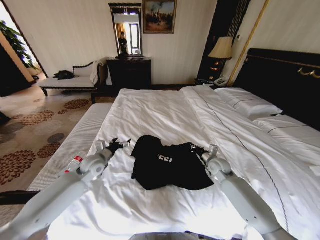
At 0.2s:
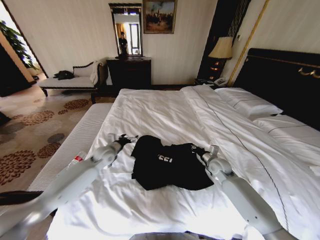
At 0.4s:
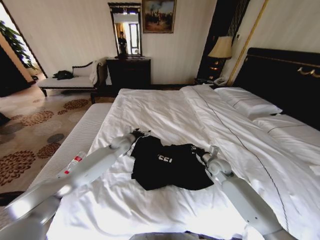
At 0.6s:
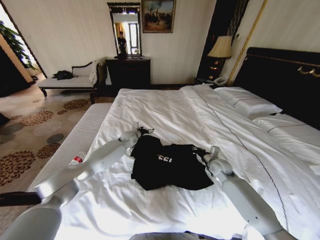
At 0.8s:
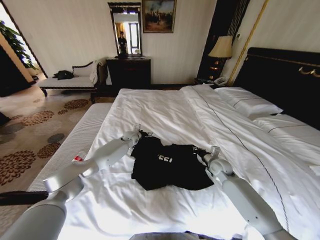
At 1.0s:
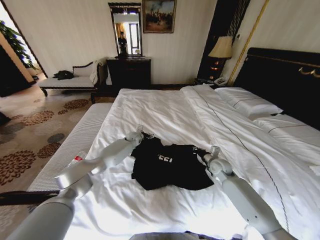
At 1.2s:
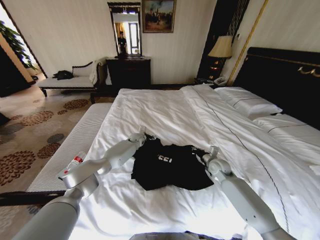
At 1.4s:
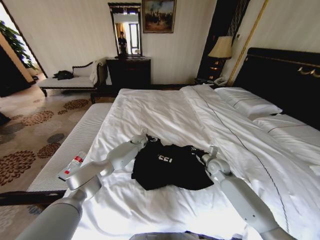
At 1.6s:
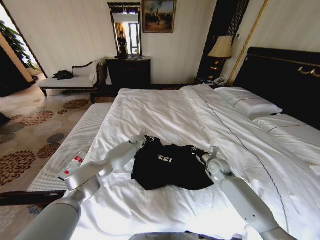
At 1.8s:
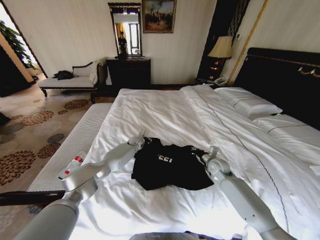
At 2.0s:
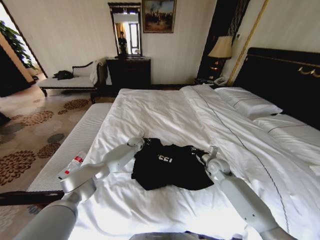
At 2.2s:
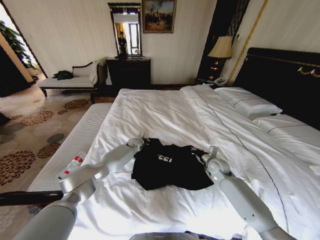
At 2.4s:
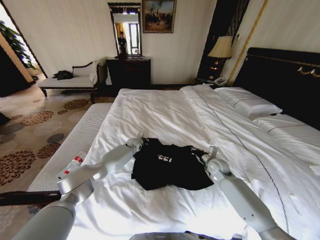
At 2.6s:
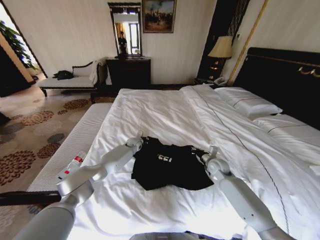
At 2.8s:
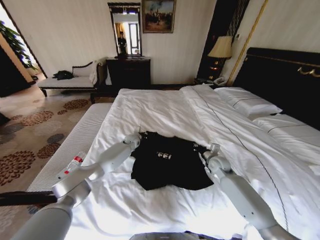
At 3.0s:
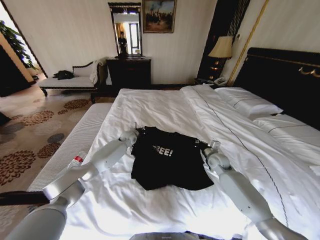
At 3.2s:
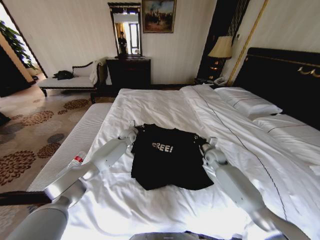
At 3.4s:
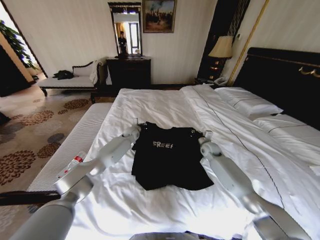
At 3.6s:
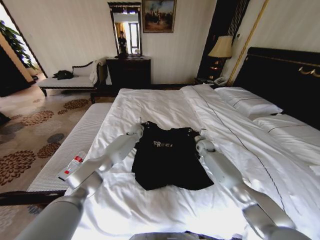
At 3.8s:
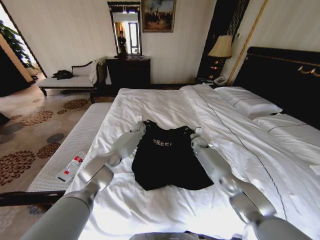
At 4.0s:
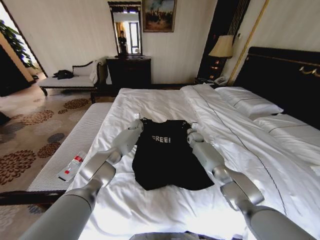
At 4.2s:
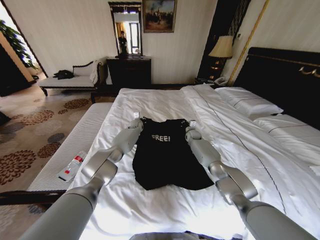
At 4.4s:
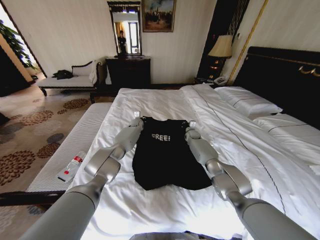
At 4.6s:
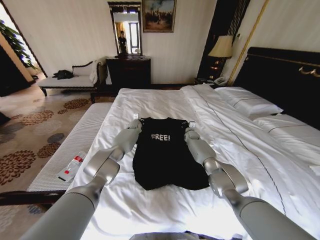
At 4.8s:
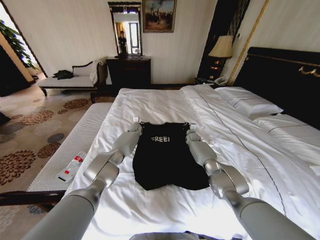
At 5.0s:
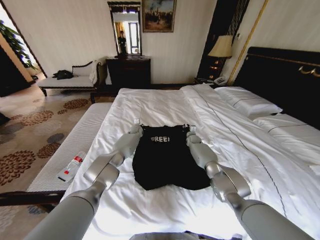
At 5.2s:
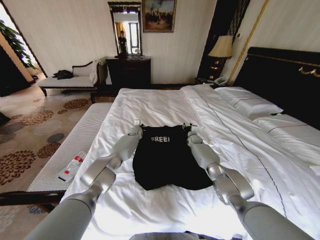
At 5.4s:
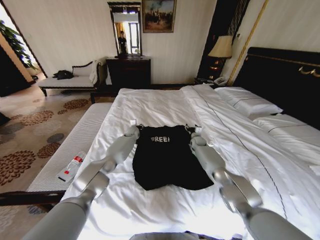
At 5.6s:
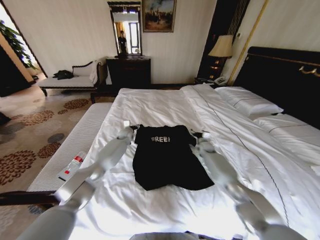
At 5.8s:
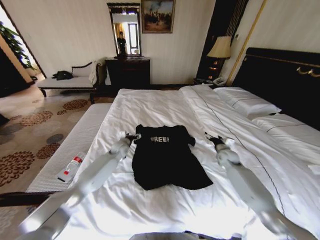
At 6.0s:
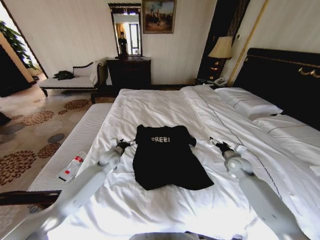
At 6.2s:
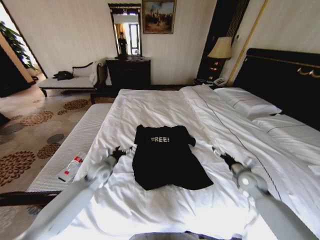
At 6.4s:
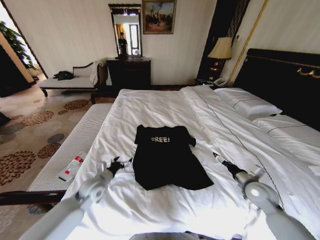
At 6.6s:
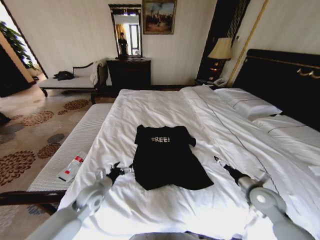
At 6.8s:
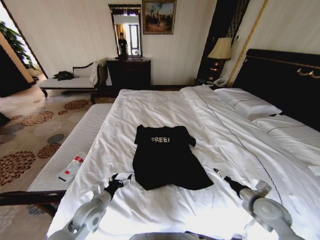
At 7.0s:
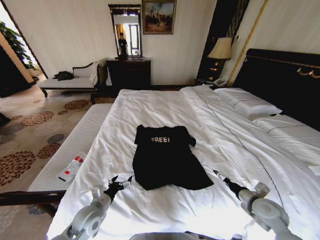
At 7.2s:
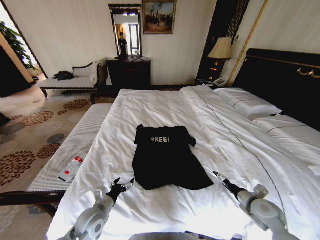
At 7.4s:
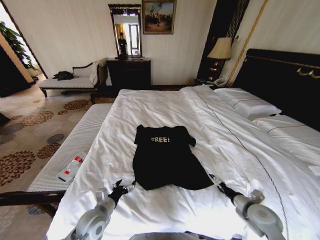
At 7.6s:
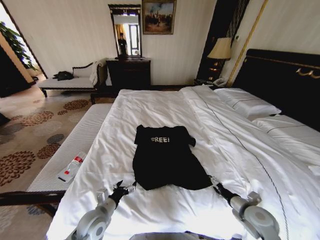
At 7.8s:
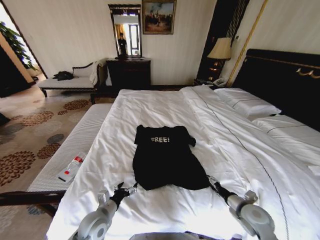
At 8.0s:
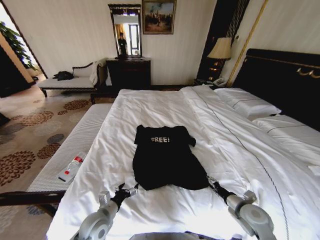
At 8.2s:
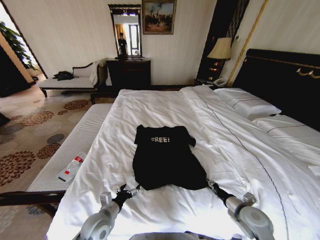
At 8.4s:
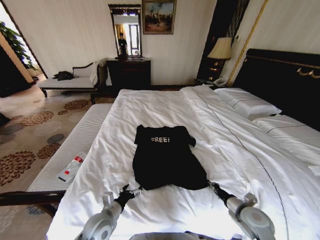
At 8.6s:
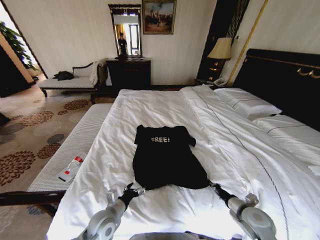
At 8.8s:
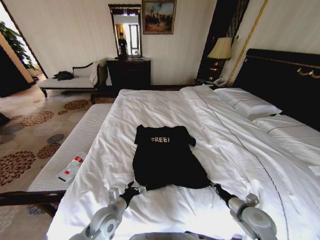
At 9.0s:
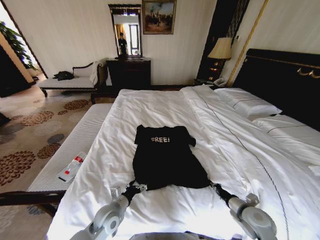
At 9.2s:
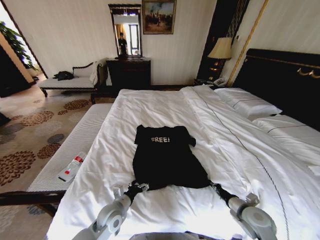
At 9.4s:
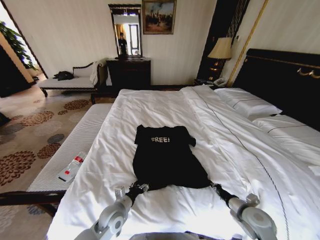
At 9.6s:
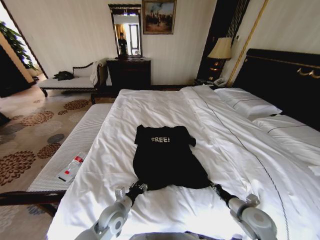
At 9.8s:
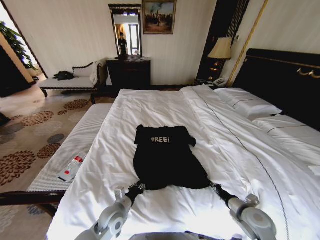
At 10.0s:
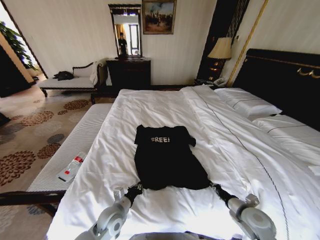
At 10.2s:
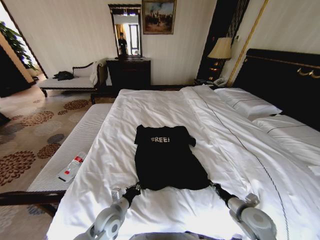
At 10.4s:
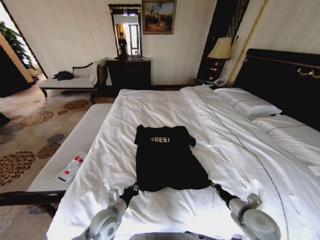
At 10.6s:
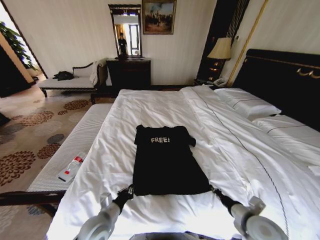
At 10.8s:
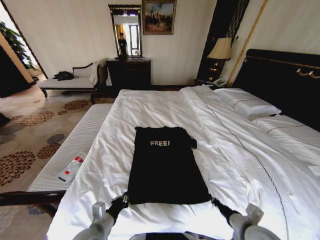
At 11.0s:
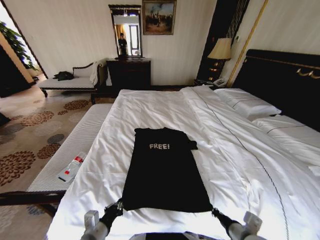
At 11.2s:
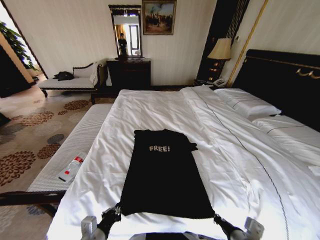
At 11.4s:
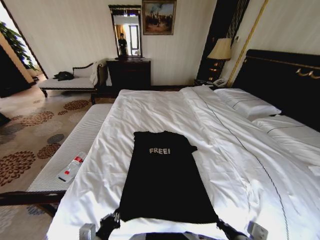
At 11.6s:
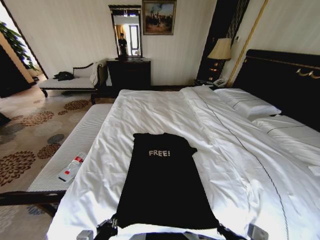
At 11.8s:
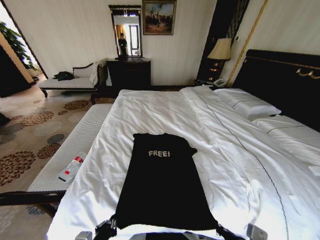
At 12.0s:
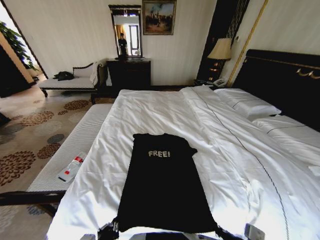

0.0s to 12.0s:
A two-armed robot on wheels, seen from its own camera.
Task of the whole recording: Fold the clothes on the bed.
0.0s to 1.6s: The left gripper goes about 30 cm forward and to the right.
1.6s to 3.0s: The left gripper travels upward by roughly 5 cm, and closes.
3.0s to 4.4s: The right gripper moves forward, about 20 cm. The left gripper is displaced forward by some 10 cm.
4.4s to 6.0s: The left gripper goes roughly 25 cm backward and to the left, and opens up. The right gripper is displaced backward and to the right by some 30 cm, and opens its fingers.
6.0s to 7.6s: Both grippers move backward, some 25 cm.
7.6s to 9.0s: The left gripper ends up roughly 5 cm from where it was, while the right gripper closes its fingers.
9.0s to 10.4s: The left gripper closes its fingers.
10.4s to 12.0s: The left gripper travels backward by roughly 15 cm. The right gripper moves backward, to the left and upward, some 15 cm.

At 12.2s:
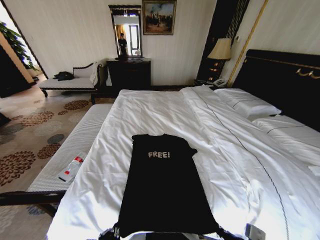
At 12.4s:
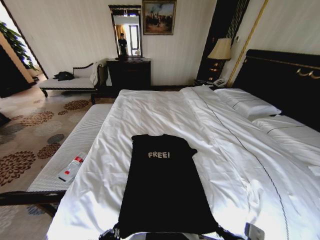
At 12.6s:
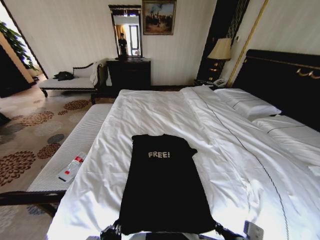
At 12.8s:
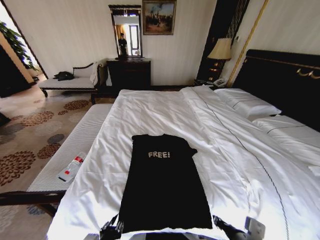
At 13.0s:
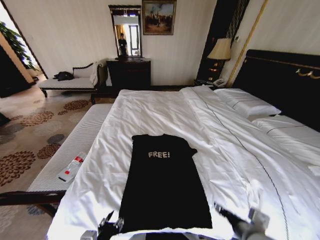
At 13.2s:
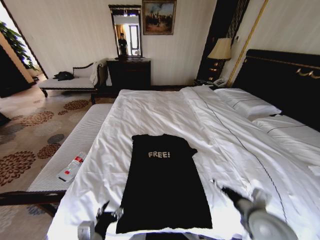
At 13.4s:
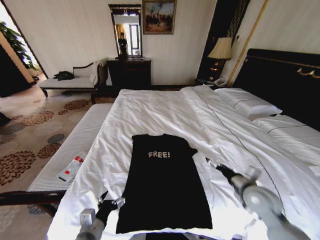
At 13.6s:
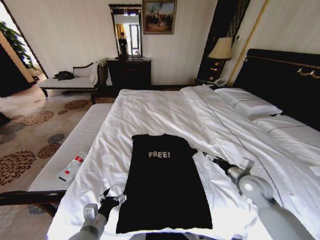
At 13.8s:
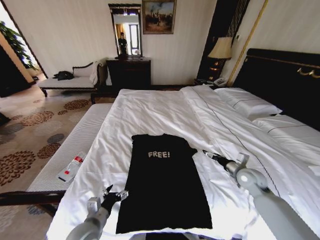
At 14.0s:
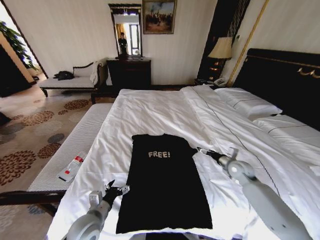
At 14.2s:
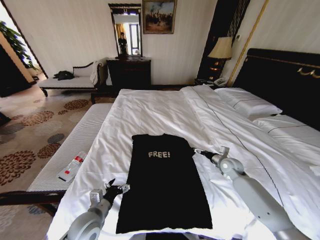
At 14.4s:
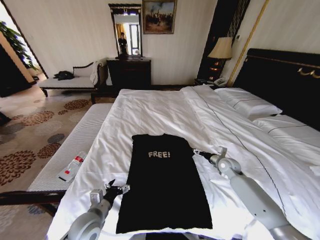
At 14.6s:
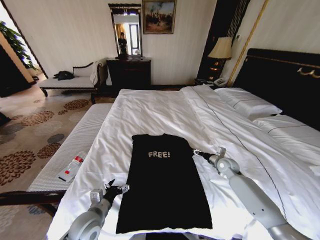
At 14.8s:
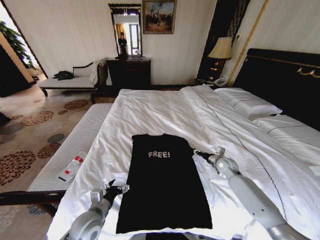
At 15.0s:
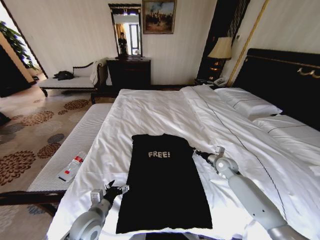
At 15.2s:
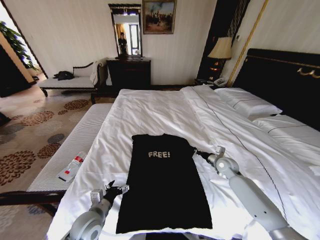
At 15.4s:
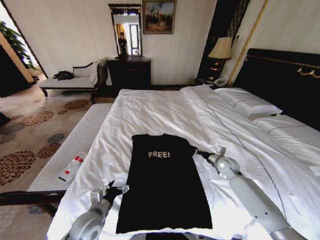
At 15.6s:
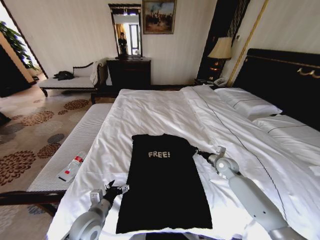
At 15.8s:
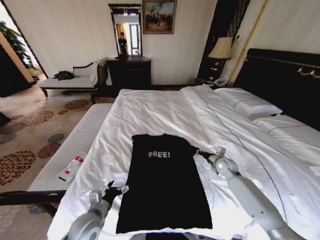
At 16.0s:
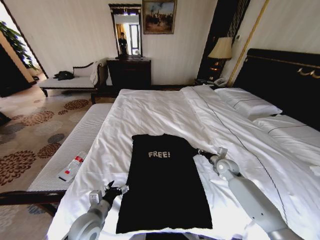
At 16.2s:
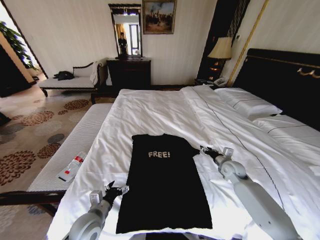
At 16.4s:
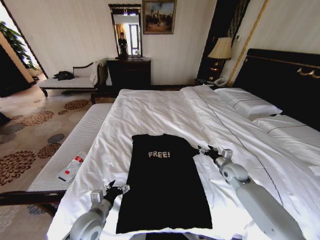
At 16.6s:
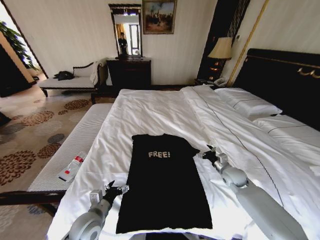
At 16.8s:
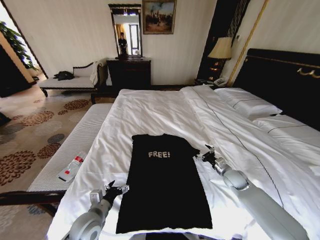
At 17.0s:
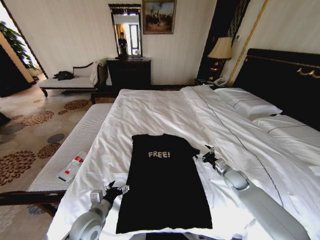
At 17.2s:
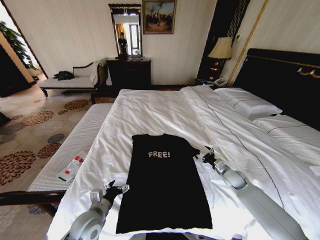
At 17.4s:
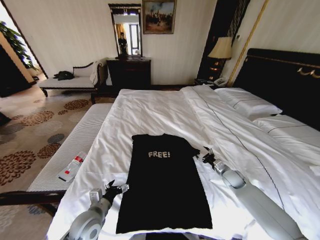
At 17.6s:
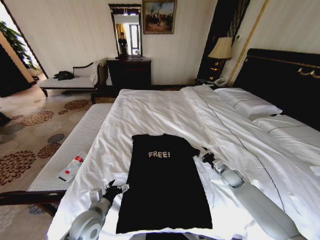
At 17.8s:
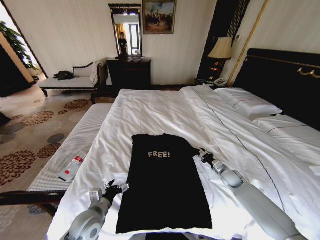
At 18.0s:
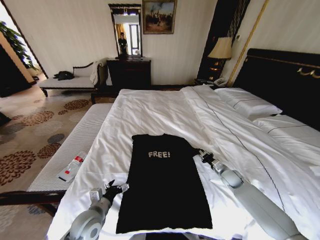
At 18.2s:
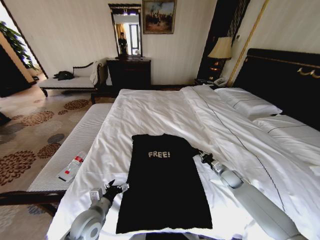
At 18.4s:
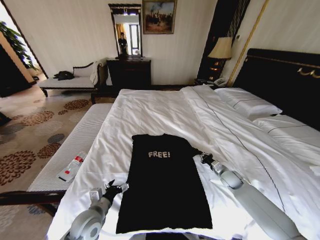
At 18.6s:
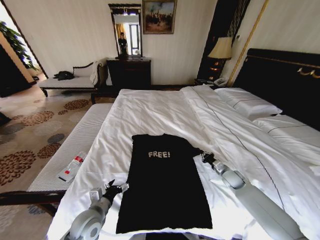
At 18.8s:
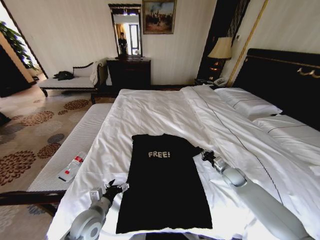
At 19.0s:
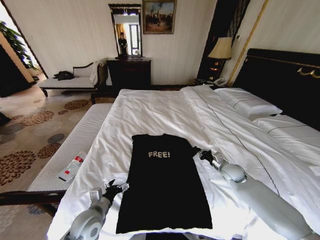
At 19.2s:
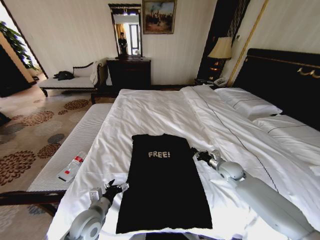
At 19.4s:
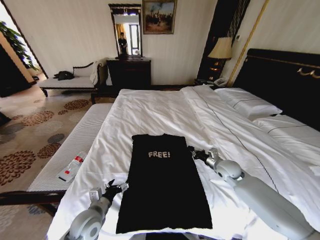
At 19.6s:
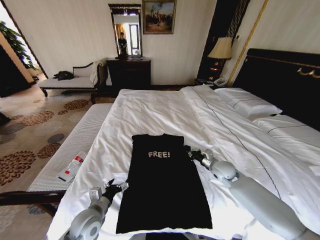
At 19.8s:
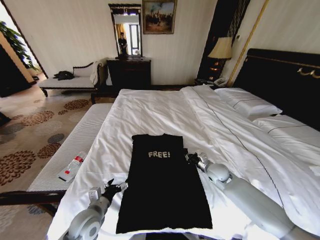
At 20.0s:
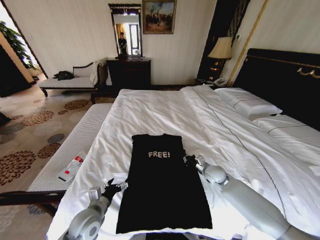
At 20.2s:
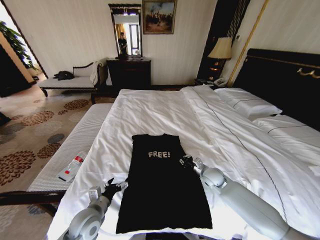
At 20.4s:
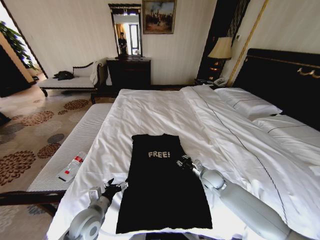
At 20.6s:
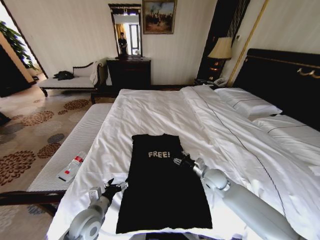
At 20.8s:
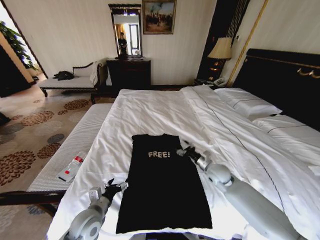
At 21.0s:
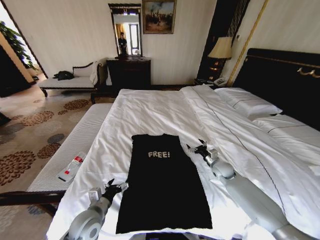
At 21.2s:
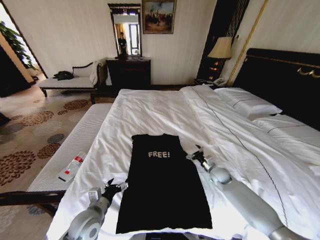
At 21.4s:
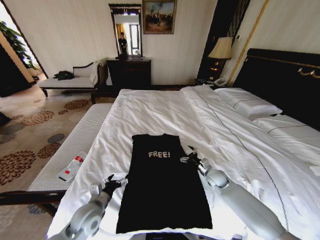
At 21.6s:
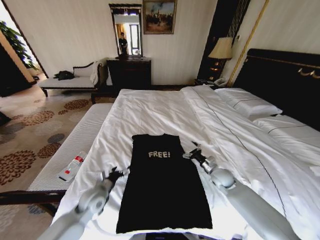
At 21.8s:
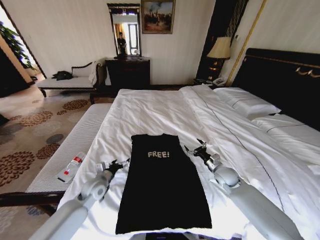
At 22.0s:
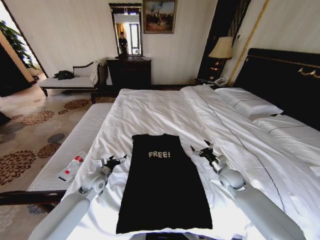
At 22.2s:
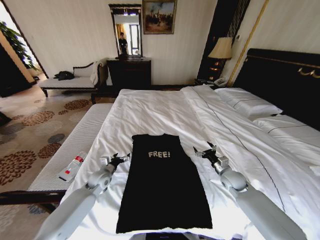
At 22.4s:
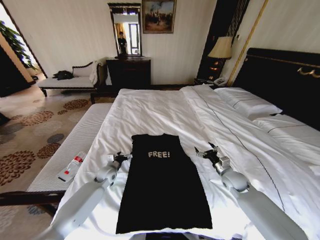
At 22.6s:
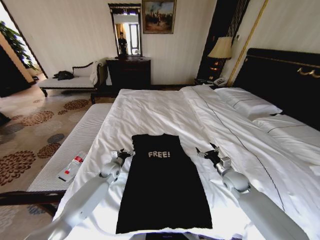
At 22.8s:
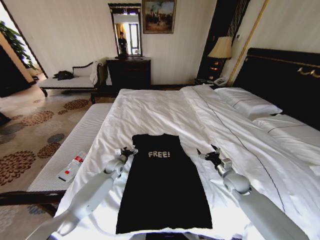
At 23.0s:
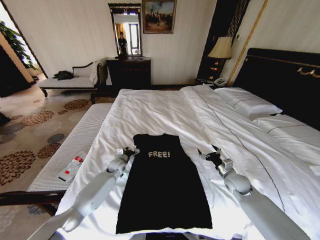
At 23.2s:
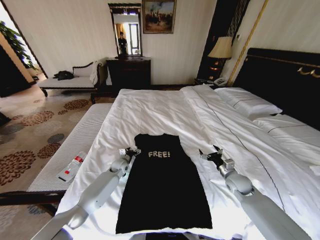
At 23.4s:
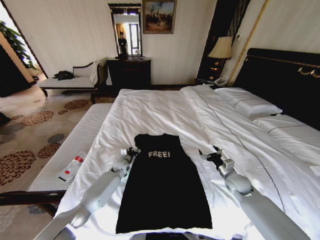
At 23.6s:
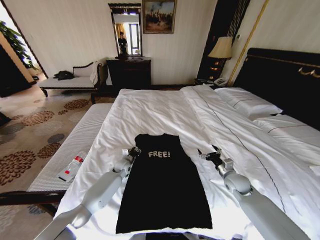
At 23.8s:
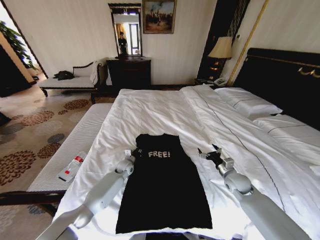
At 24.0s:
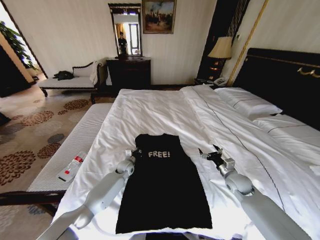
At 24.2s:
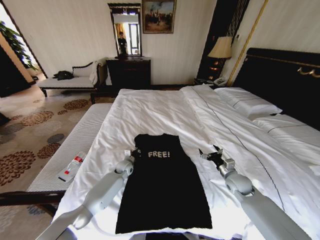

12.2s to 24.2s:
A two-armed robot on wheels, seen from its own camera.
Task of the whole recording: Fold the clothes on the bed.
12.2s to 13.8s: The left gripper moves forward, roughly 10 cm, and opens up; the right gripper shifts about 30 cm forward and to the right, and opens up.
13.8s to 15.2s: The right gripper travels forward by roughly 10 cm, and closes up.
15.2s to 16.6s: The right gripper ends up some 5 cm from where it was, and opens its fingers.
16.6s to 18.2s: The right gripper is displaced downward by roughly 5 cm, and closes up.
18.2s to 19.8s: The right gripper moves to the left and upward, about 10 cm.
19.8s to 21.2s: The right gripper travels downward by some 5 cm, and opens its fingers.
21.2s to 22.6s: The left gripper shifts some 25 cm forward. Meanwhile the right gripper is displaced upward and backward by roughly 5 cm.
22.6s to 24.2s: The left gripper moves to the right, some 5 cm, and closes.
